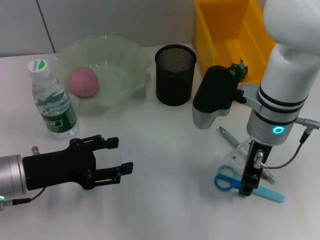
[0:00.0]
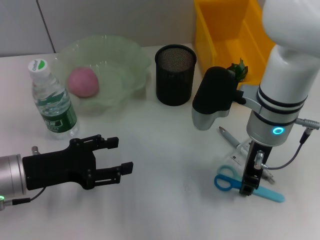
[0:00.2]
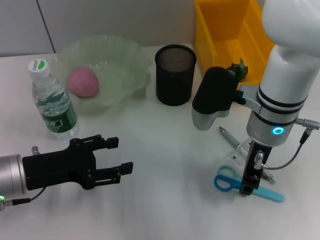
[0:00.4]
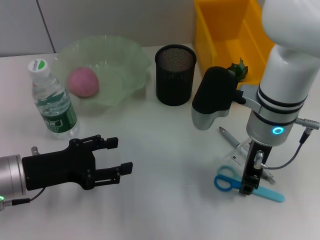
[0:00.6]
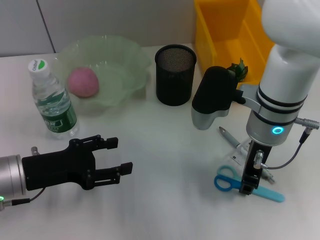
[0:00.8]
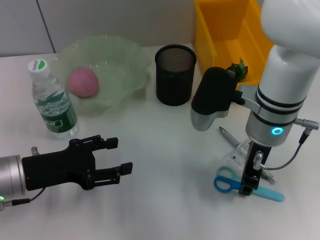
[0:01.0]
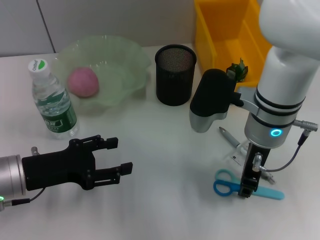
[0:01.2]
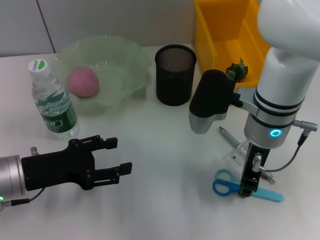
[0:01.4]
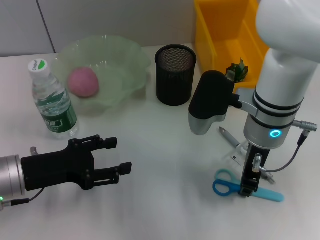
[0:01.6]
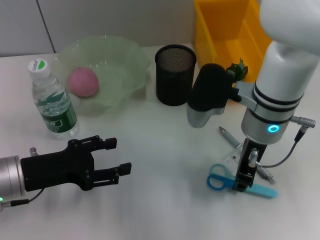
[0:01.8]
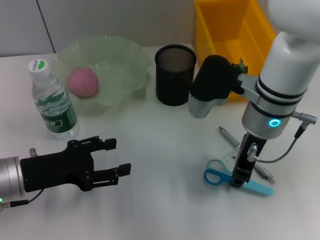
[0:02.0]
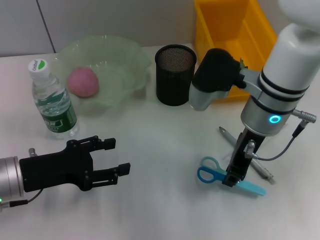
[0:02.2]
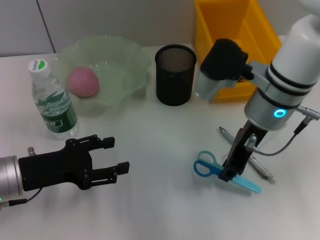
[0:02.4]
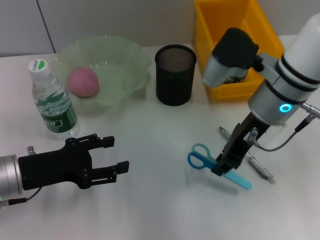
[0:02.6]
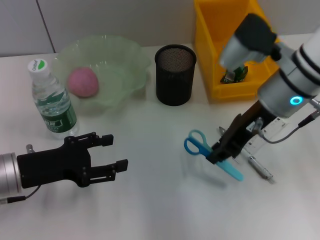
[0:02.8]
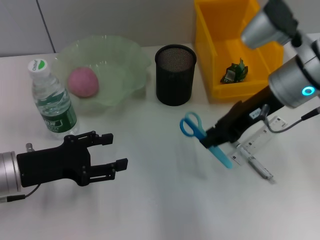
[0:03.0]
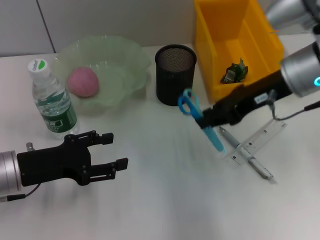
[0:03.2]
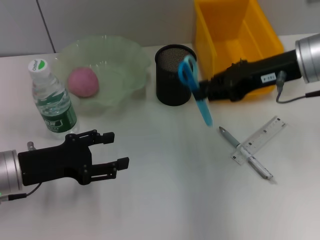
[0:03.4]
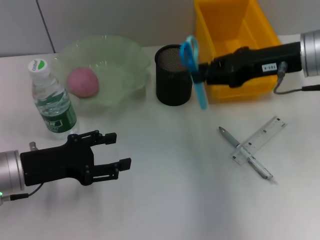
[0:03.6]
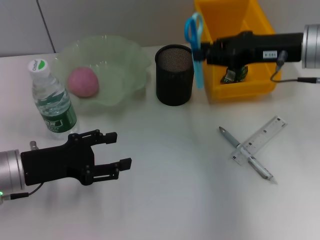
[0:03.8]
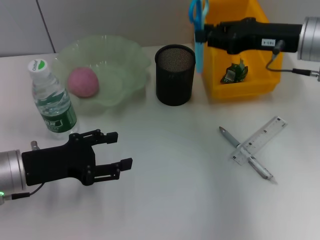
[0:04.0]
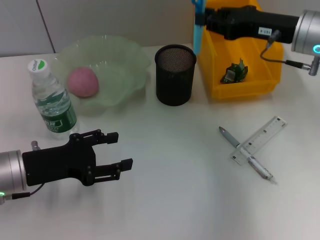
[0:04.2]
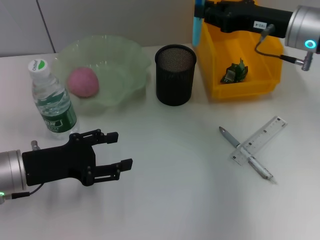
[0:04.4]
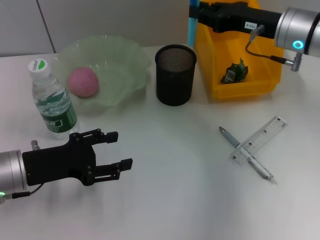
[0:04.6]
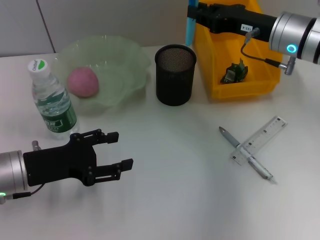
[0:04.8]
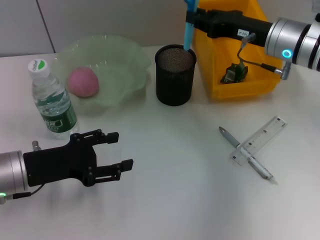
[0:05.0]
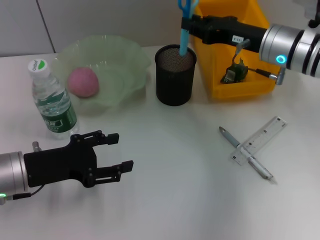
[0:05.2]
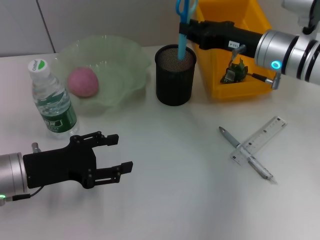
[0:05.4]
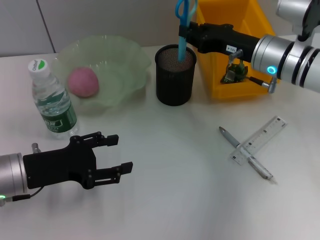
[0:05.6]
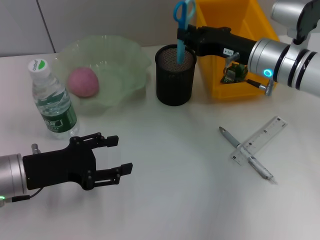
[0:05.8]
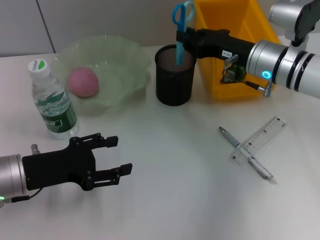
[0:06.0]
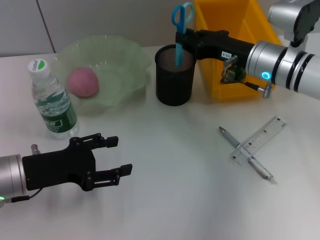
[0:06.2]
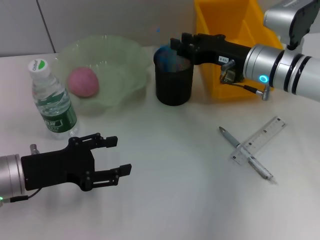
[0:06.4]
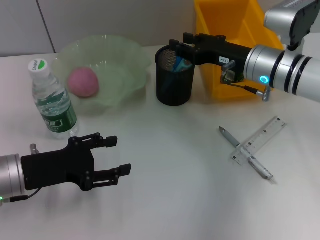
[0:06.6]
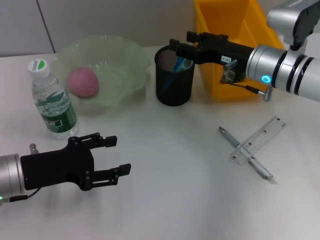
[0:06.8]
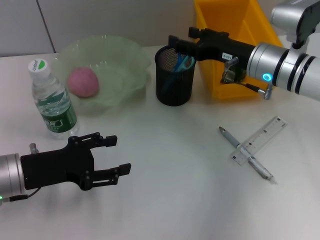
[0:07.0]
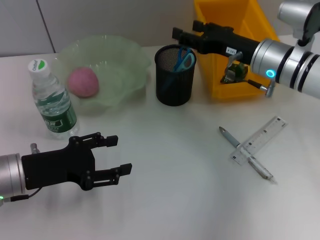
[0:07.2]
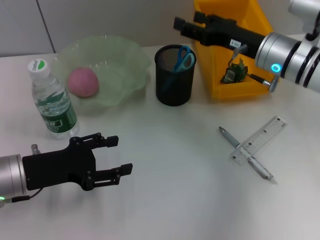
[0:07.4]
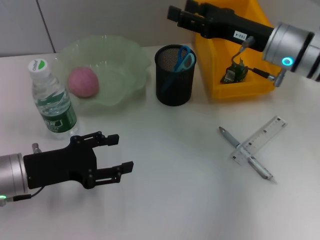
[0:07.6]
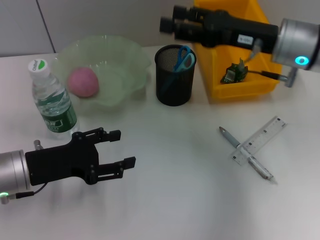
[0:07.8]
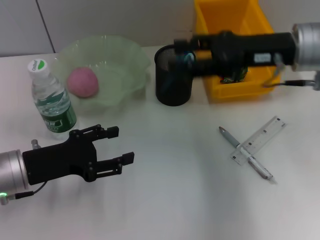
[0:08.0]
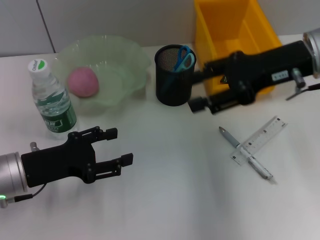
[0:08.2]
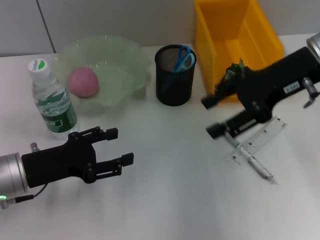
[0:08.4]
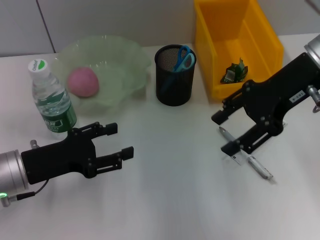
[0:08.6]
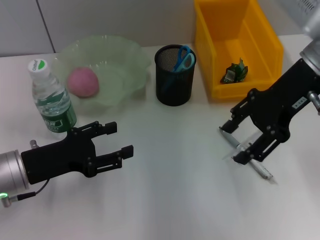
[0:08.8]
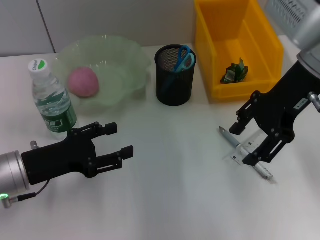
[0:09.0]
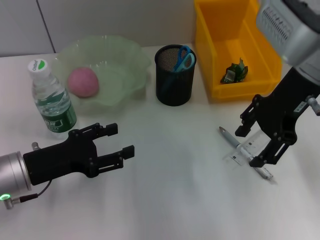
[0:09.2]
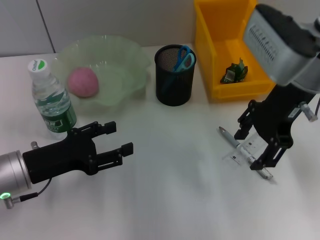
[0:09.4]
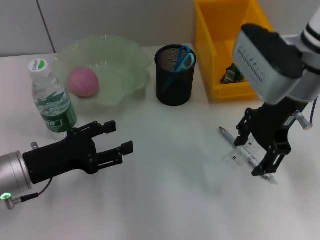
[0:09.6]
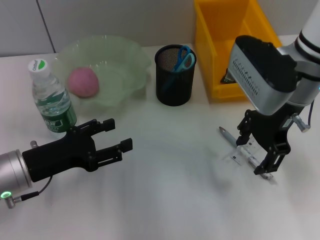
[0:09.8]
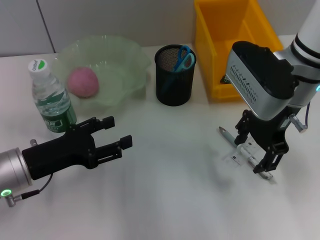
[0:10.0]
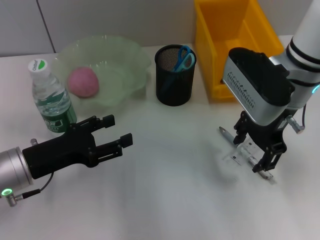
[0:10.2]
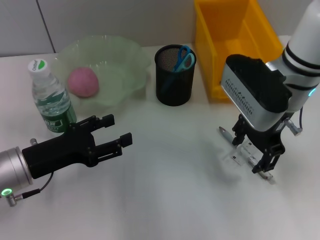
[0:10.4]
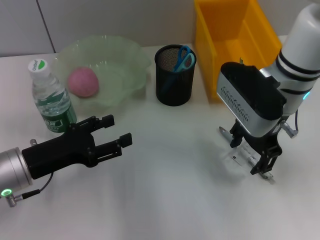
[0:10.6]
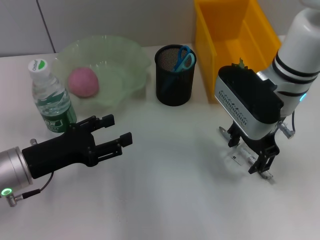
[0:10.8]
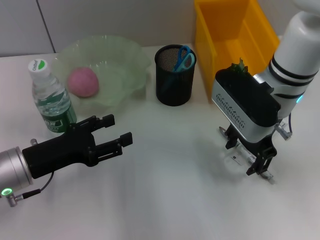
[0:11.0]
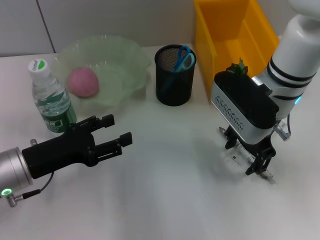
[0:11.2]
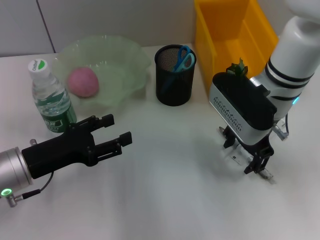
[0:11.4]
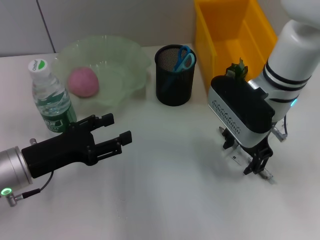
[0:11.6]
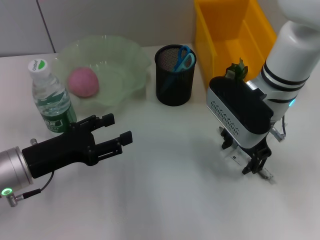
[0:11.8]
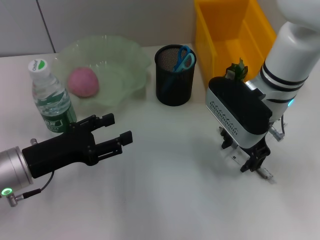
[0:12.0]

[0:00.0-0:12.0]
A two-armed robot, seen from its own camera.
Step, 0:01.6 to 0:06.6: Place the blue scissors into the pen holder with the right hand.
0:00.0 to 0:01.6: Both grippers stay about where they are.
0:01.6 to 0:03.0: The right gripper heads to the right, covering about 5 cm.
0:03.0 to 0:04.4: The right gripper ends up about 5 cm from where it was.
0:04.4 to 0:06.0: The right gripper goes approximately 5 cm downward.
0:06.0 to 0:07.6: The right gripper opens.
0:07.6 to 0:09.0: The right gripper goes about 10 cm upward.
0:09.0 to 0:10.4: The right gripper heads downward, covering some 5 cm.
0:10.4 to 0:12.0: The grippers make only small movements.

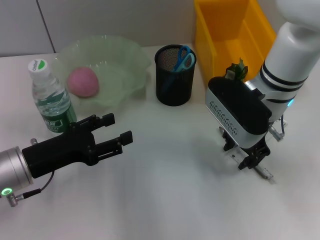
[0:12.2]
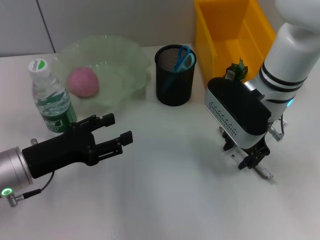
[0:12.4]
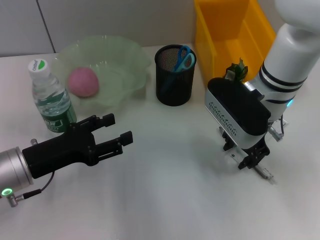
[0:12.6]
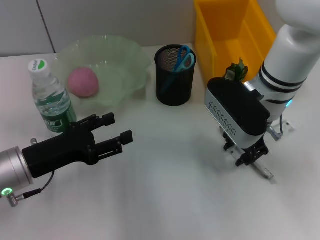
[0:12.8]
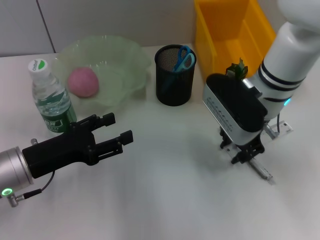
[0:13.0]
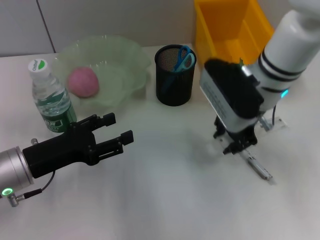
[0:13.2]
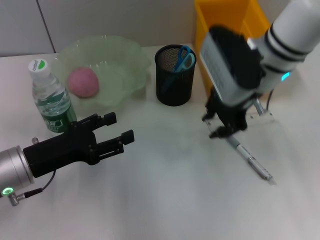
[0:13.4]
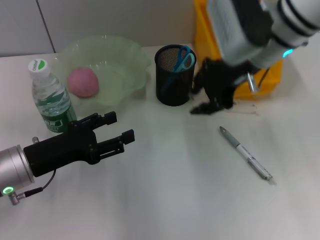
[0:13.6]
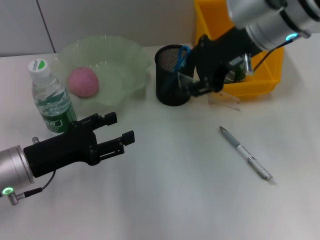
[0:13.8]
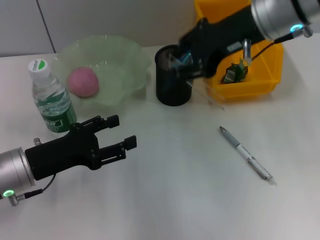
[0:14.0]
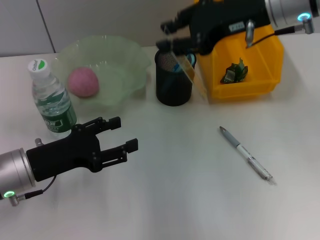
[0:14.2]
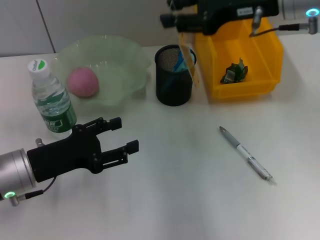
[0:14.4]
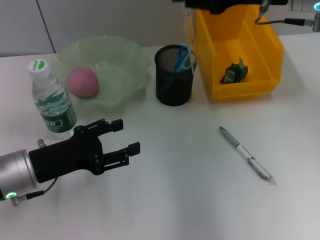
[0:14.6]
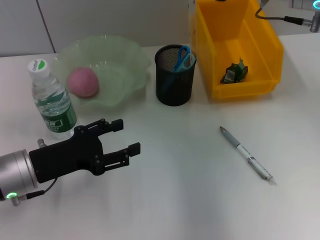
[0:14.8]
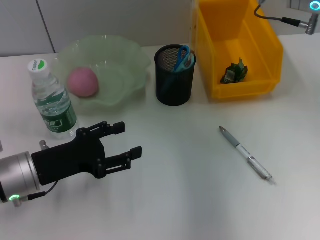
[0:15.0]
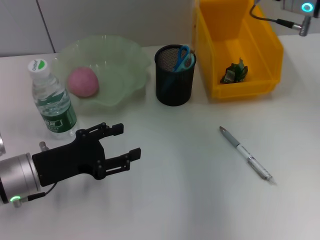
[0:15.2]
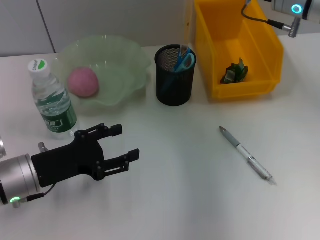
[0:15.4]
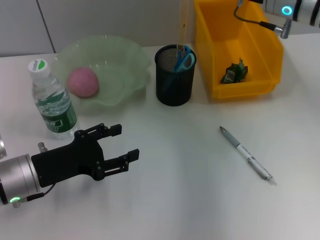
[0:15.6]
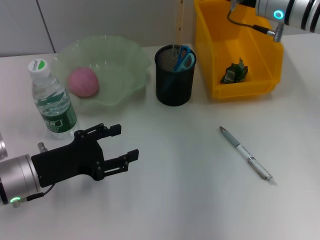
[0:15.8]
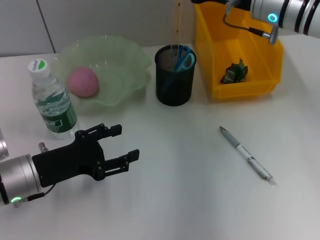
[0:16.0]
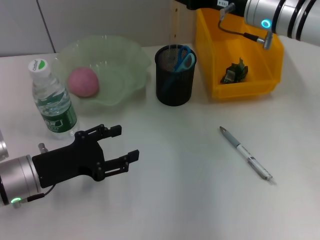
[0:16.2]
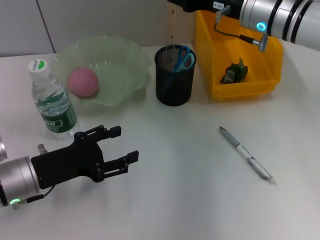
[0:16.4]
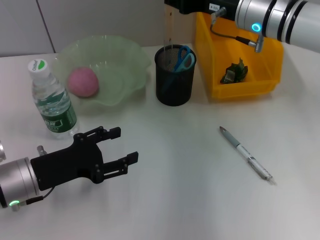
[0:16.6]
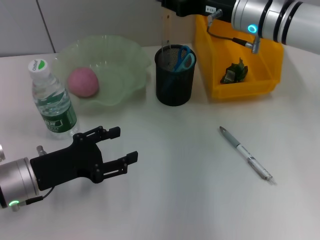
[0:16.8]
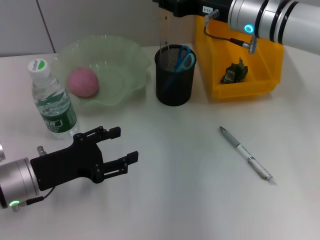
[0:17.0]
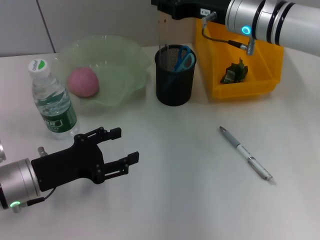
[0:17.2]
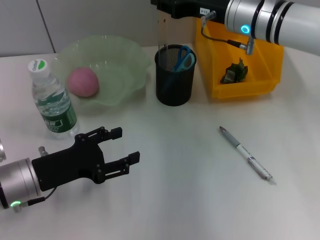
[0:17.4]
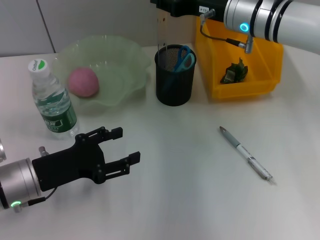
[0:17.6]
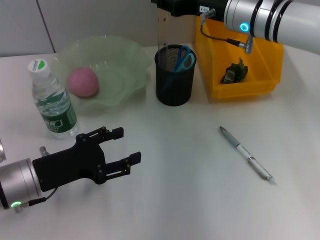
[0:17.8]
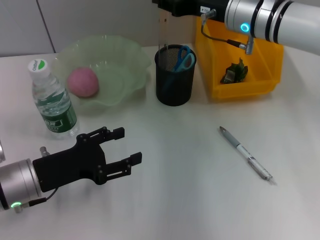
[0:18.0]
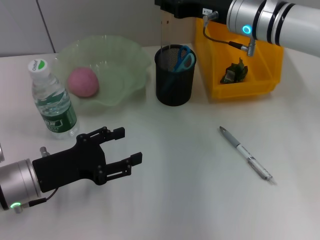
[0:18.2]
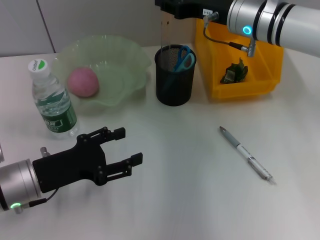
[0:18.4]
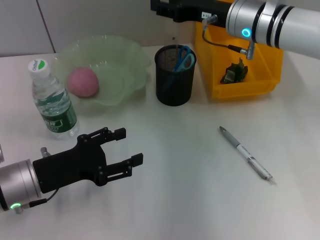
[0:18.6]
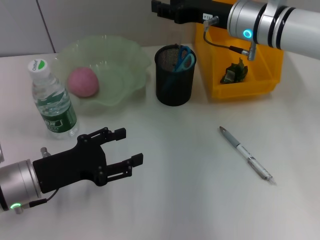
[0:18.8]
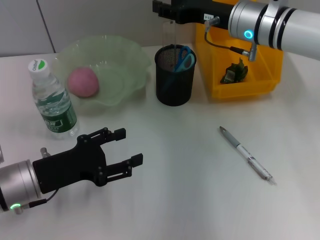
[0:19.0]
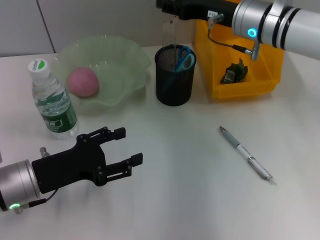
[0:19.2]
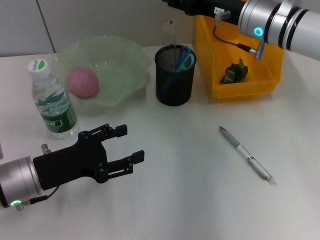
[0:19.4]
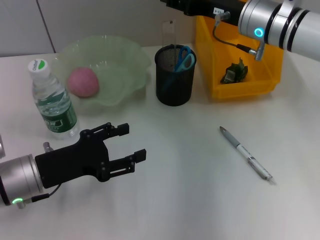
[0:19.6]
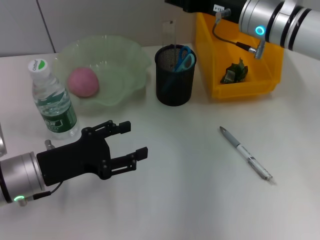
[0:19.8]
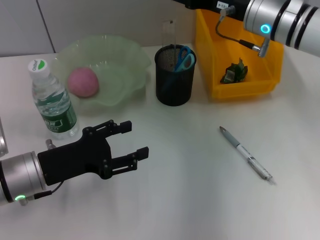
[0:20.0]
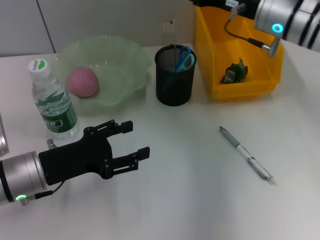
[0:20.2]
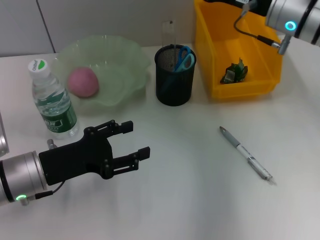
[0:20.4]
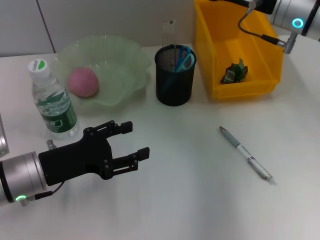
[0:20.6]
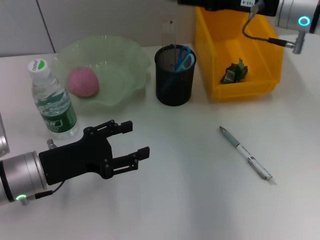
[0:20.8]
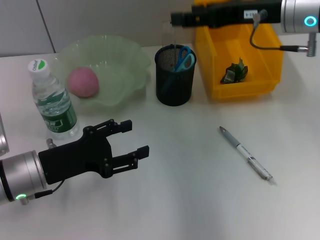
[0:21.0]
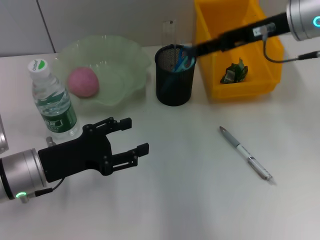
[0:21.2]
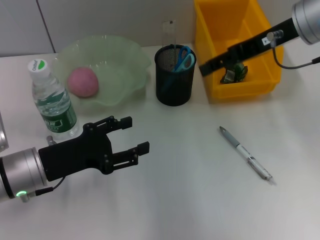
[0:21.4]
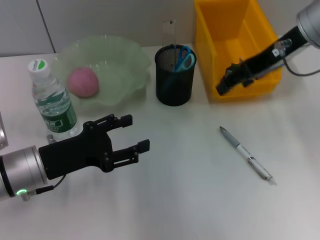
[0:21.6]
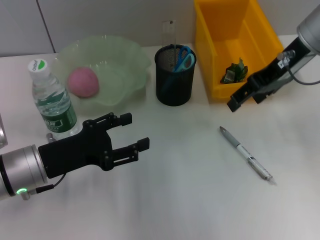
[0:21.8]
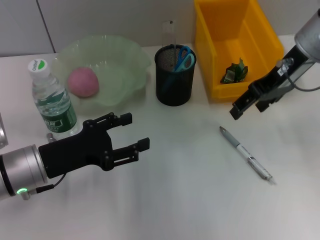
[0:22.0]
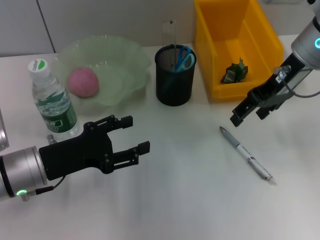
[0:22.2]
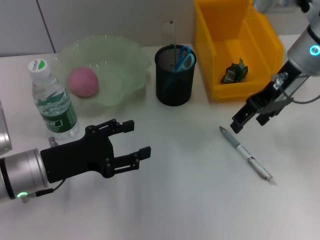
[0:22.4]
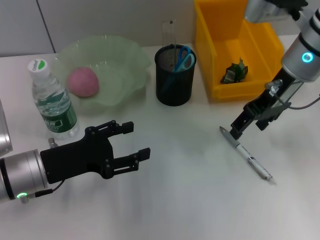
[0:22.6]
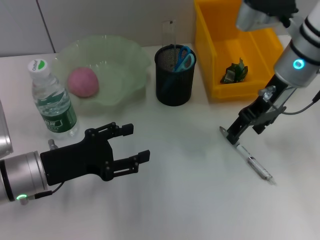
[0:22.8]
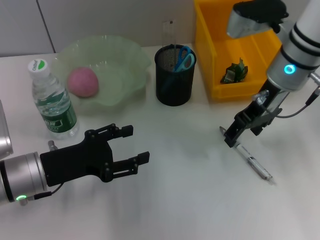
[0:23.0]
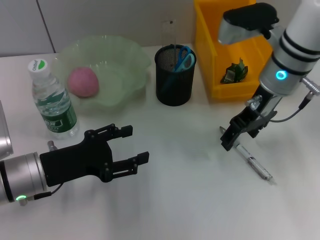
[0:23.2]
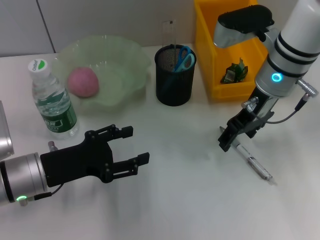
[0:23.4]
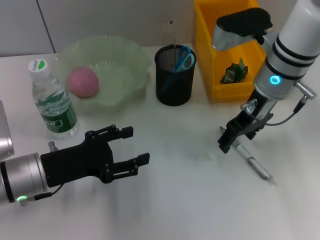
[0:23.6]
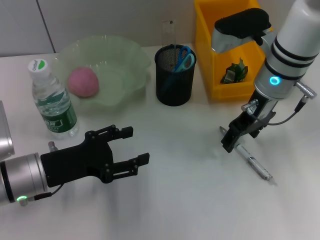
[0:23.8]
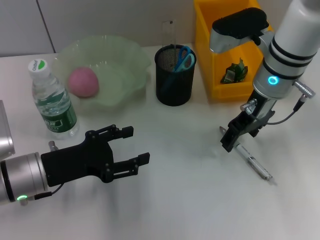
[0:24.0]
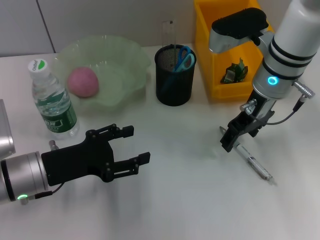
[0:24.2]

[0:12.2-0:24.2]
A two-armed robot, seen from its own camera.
Step, 0:13.0 to 0:19.0: Place the ruler into the pen holder with the right hand.
0:12.2 to 0:13.8: The right gripper travels upward by about 10 cm, and closes.
0:13.8 to 0:15.2: The right gripper shifts about 5 cm to the right.
0:15.2 to 0:16.6: The right gripper moves about 5 cm.
0:16.6 to 0:19.8: The grippers make only small movements.
0:19.8 to 0:21.2: The right gripper is displaced upward by roughly 5 cm.
0:21.2 to 0:22.6: The right gripper moves downward, approximately 5 cm.
0:22.6 to 0:24.2: The right gripper ends up about 5 cm from where it was.
